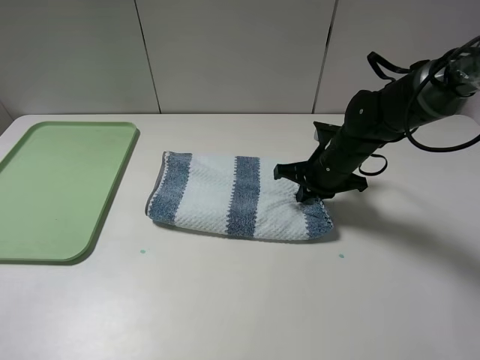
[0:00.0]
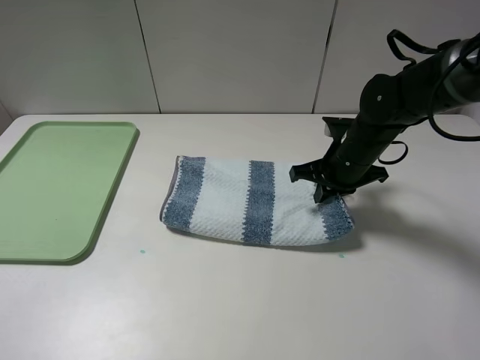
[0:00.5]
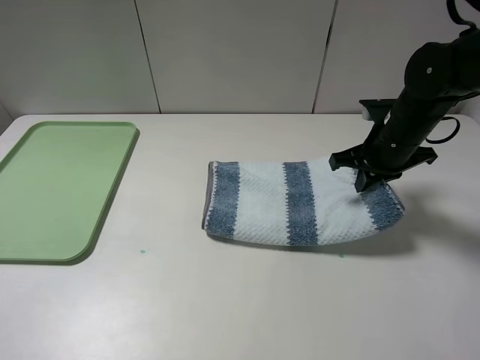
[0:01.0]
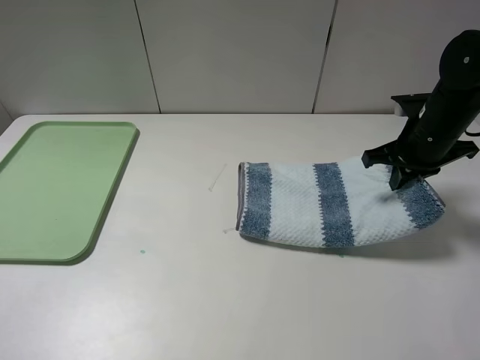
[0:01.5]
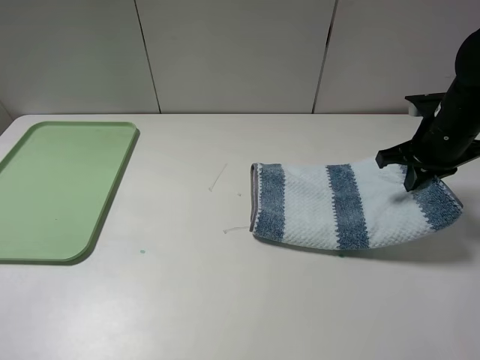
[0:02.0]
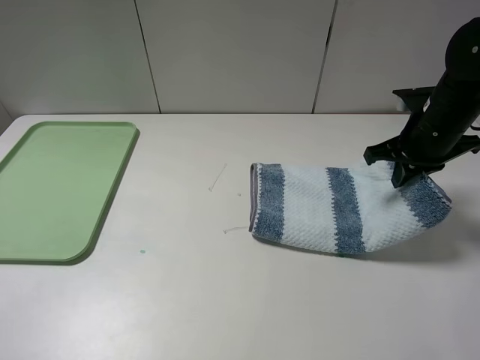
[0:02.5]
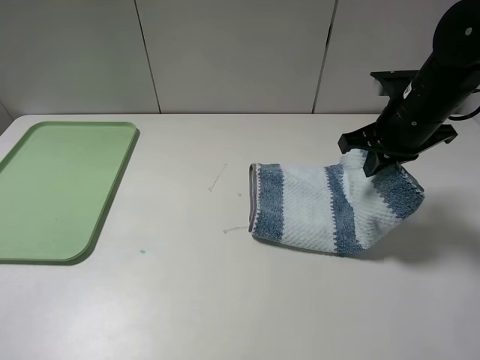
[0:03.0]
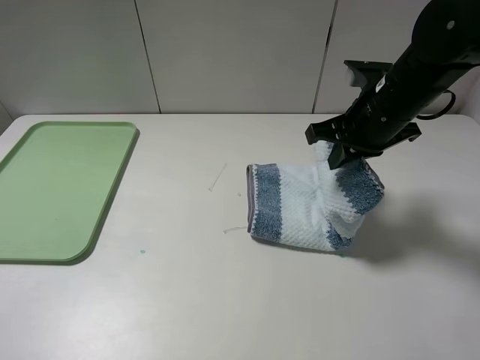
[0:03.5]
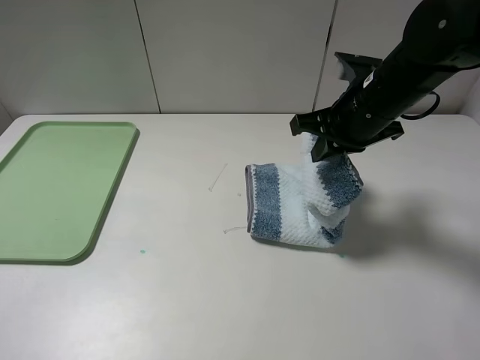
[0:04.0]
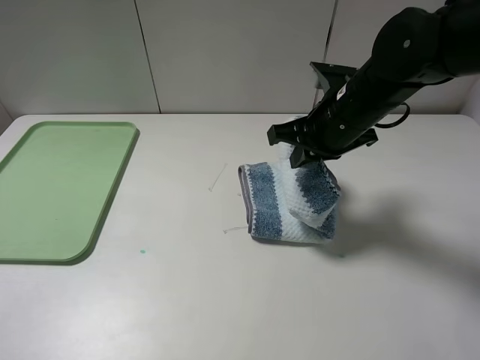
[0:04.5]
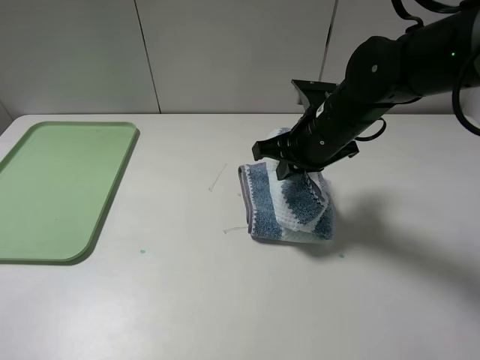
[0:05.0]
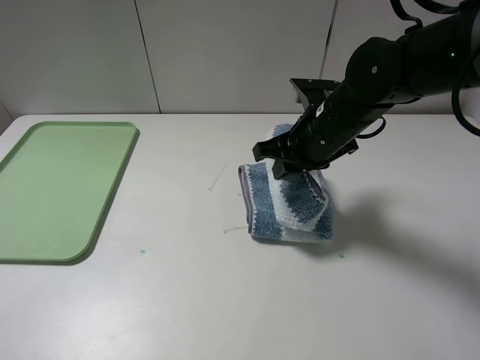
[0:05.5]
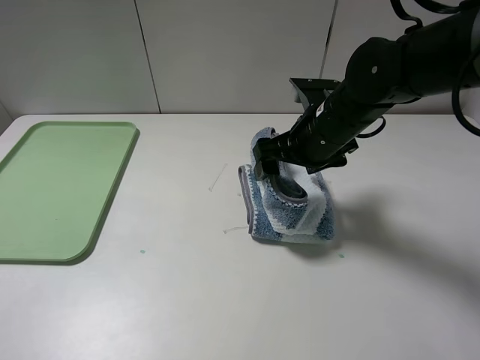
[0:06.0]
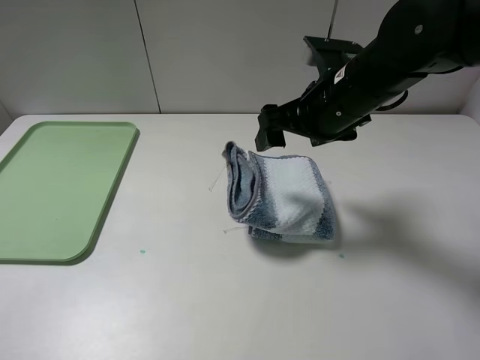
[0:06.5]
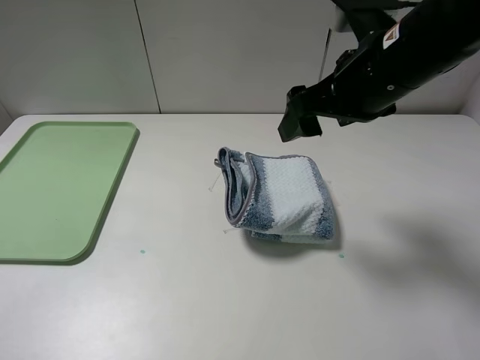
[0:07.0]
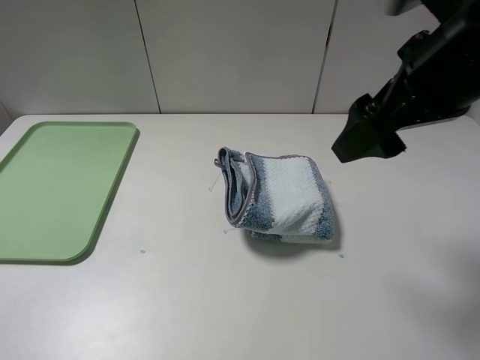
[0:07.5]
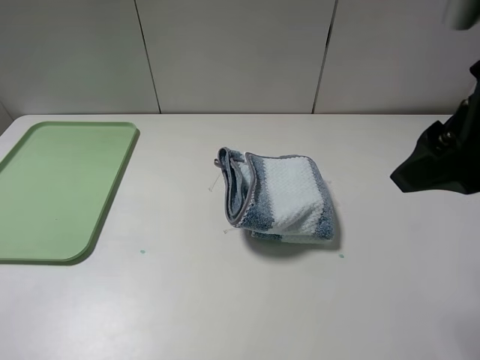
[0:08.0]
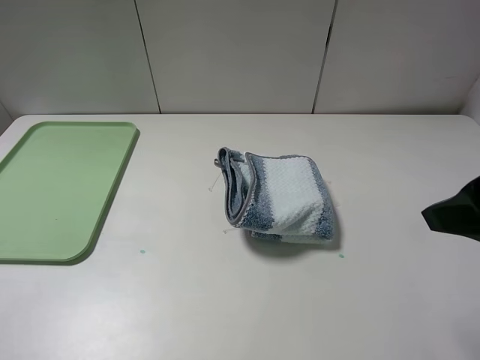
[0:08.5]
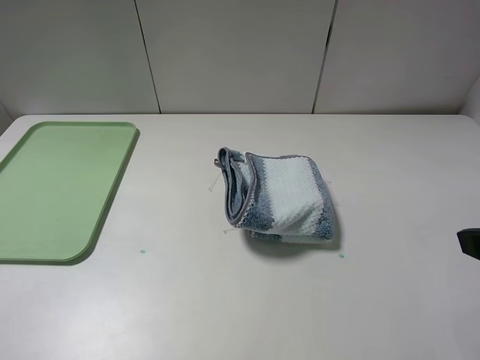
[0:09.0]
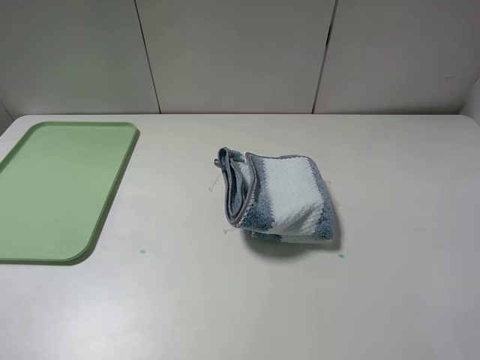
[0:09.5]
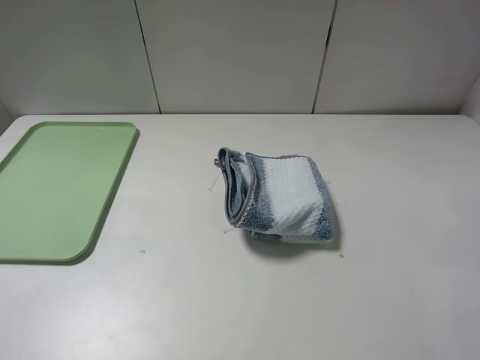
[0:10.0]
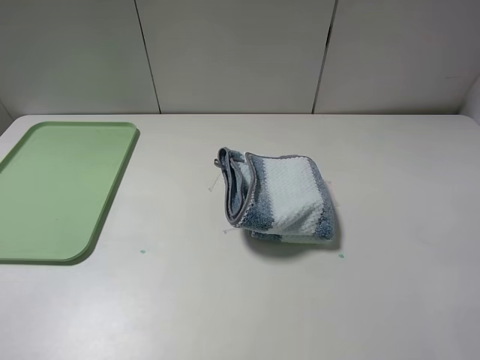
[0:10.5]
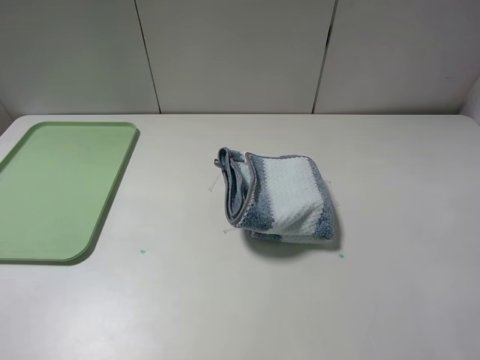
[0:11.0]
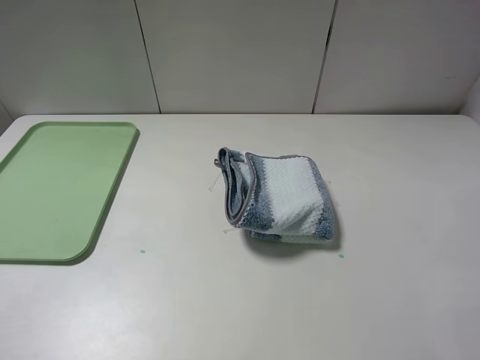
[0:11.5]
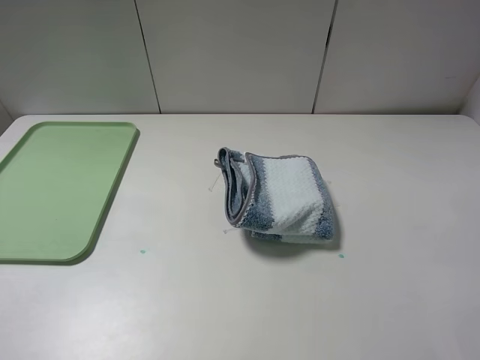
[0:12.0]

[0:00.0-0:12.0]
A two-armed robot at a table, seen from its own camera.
Step, 0:00.0 to 0:07.0: Fold the blue white towel from right to left with right gripper.
0:00.0 to 0:02.0: The right gripper is displaced to the right and upward by some 15 cm.
0:02.0 to 0:04.0: The right gripper heads to the left, covering approximately 15 cm.
0:04.0 to 0:06.0: The right gripper shifts by some 5 cm, and opens up.
0:06.0 to 0:08.0: The right gripper heads upward, backward and to the right, covering approximately 25 cm.
0:08.0 to 0:10.0: The right gripper shifts roughly 20 cm backward and to the right.
0:10.0 to 0:12.0: Neither gripper changes place.

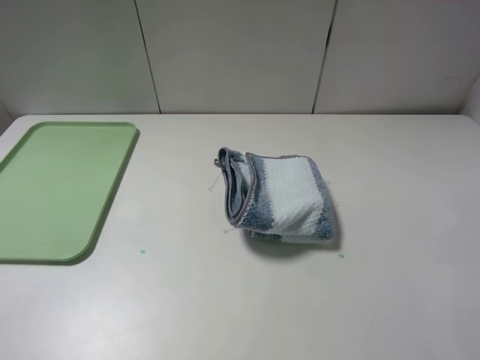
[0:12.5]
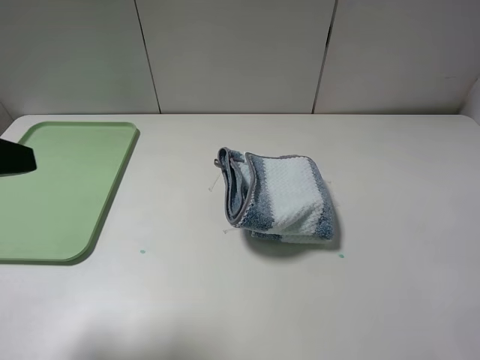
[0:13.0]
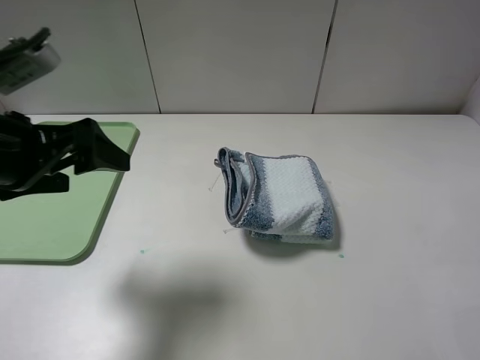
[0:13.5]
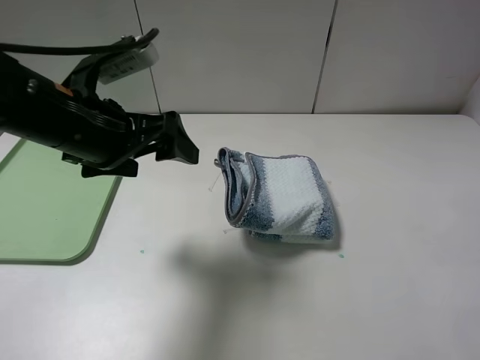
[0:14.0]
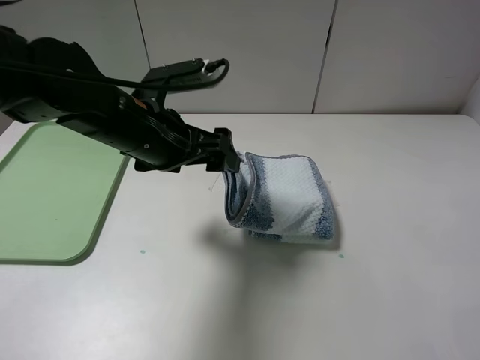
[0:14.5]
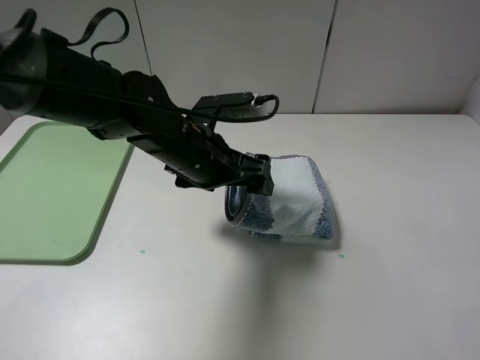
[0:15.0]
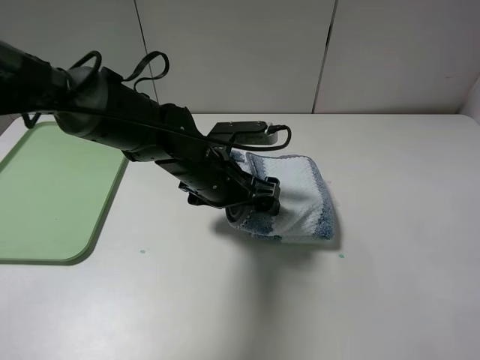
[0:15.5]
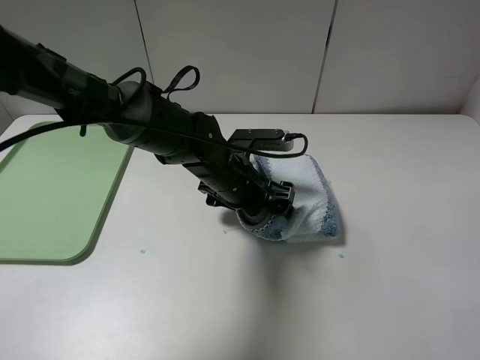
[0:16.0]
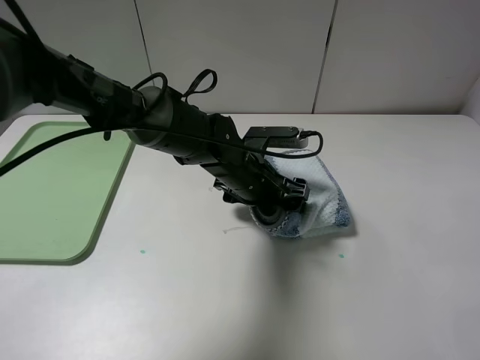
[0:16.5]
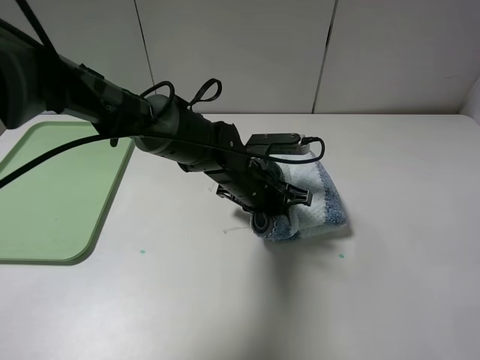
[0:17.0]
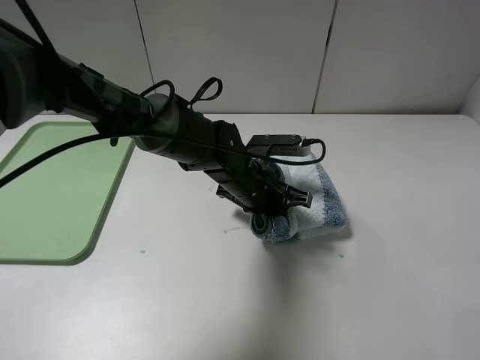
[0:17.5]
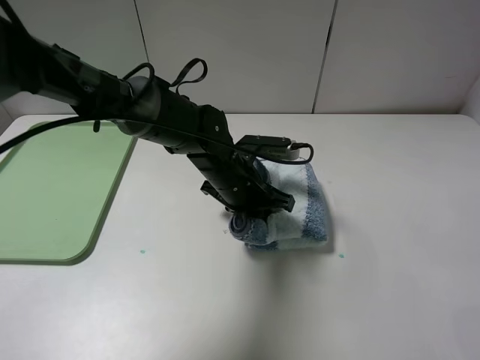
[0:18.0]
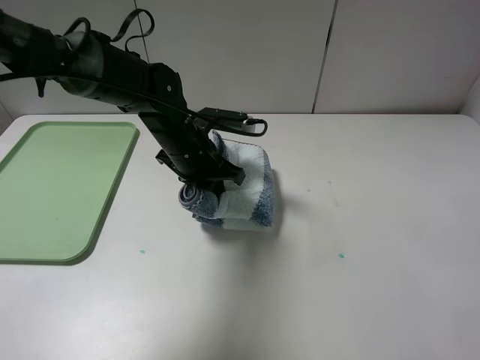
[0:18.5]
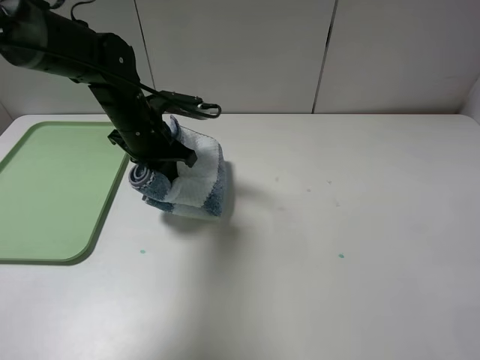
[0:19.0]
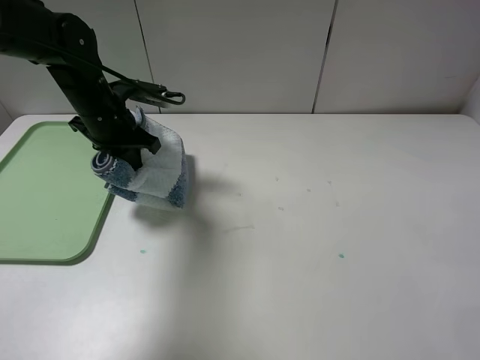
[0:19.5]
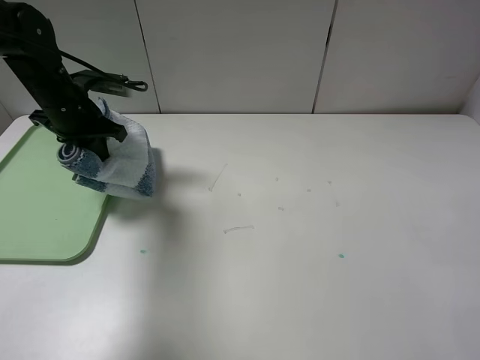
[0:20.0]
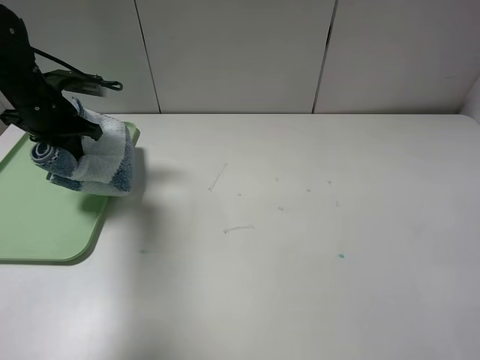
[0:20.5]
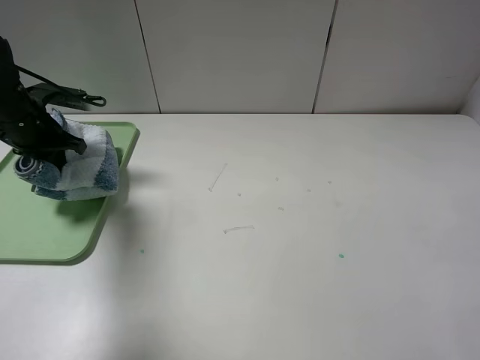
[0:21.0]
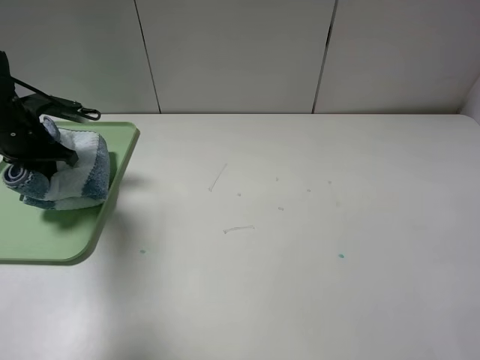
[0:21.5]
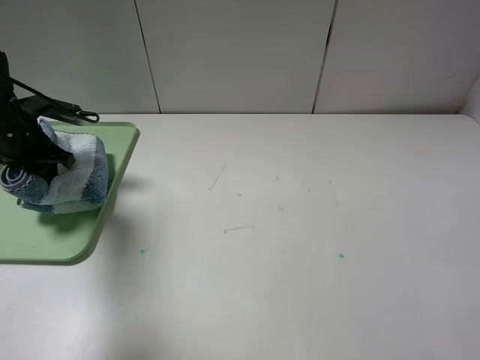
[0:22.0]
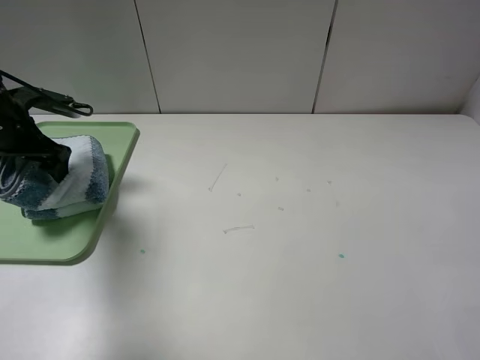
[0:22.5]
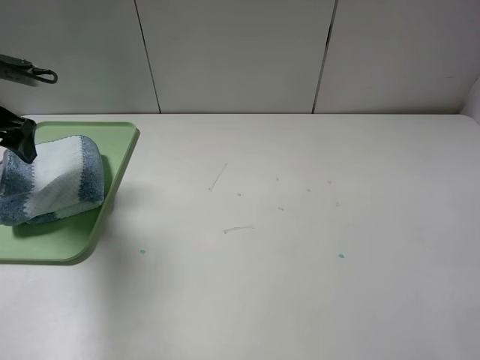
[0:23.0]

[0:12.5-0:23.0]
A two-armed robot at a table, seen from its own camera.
Step, 0:12.5 to 0:17.5: Grasp the blue white towel with the left gripper.
0:12.5 to 0:14.5: The left gripper heads forward and to the right, covering about 30 cm.
0:14.5 to 0:16.5: The left gripper moves downward and to the right, some 15 cm.
0:16.5 to 0:19.0: The left gripper heads to the left and upward, covering some 15 cm, and closes up.
0:19.0 to 0:21.0: The left gripper heads to the left, covering some 20 cm.
0:21.0 to 0:23.0: The left gripper travels upward by some 10 cm, and opens.

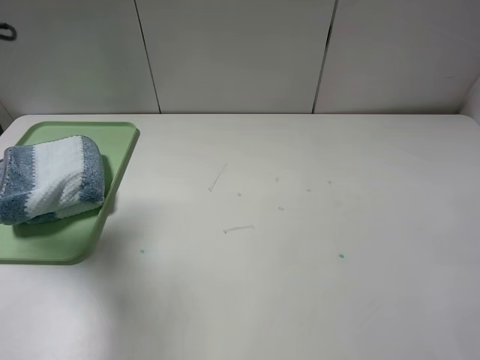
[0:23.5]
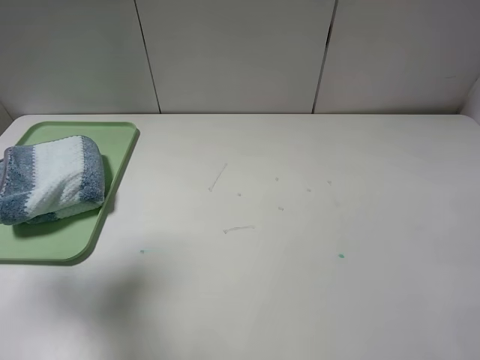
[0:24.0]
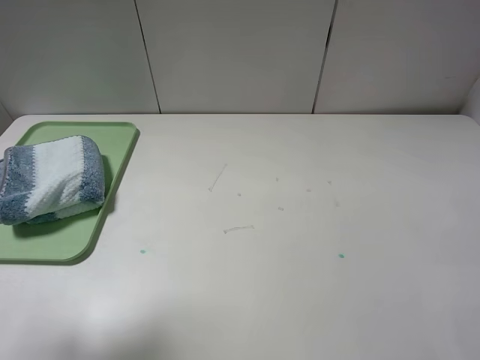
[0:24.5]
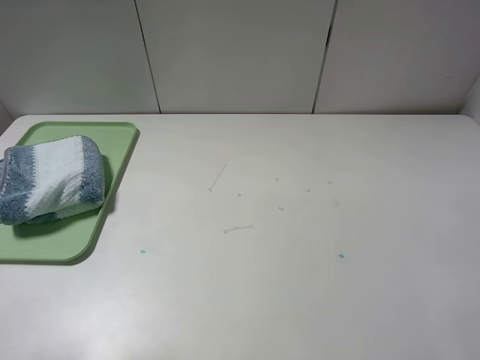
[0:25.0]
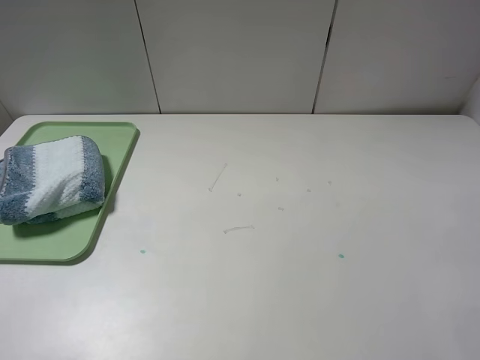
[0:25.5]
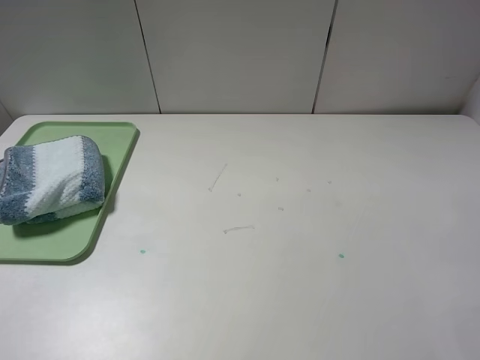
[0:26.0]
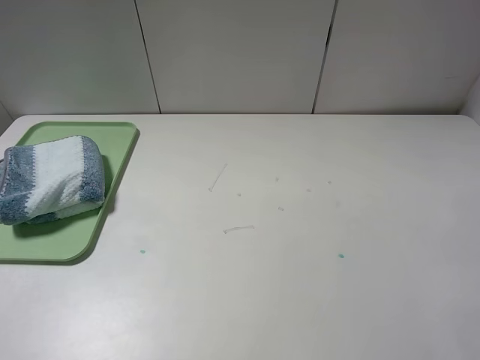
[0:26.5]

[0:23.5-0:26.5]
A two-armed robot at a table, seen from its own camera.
0:23.5 to 0:25.0: The left gripper is displaced backward by about 25 cm.
